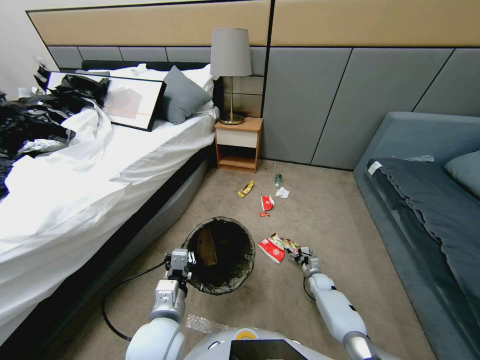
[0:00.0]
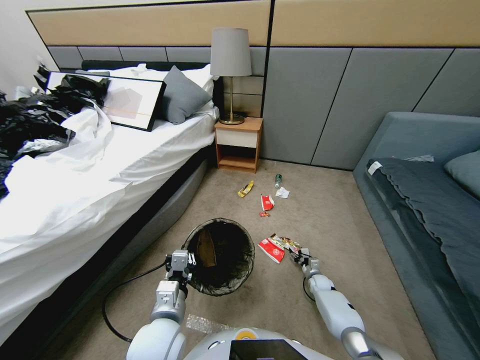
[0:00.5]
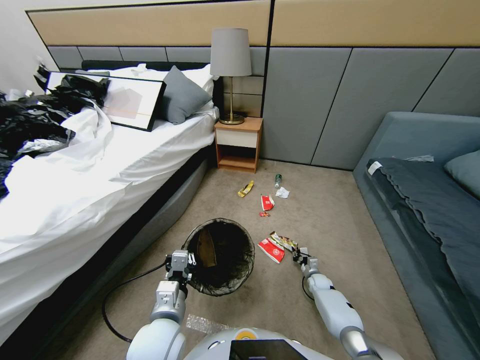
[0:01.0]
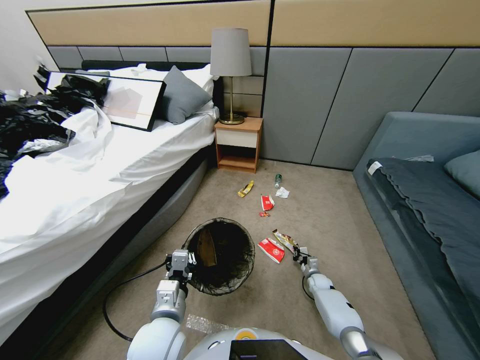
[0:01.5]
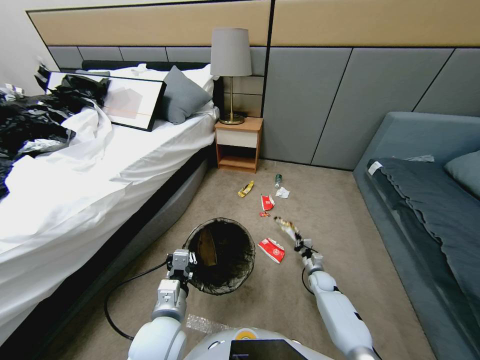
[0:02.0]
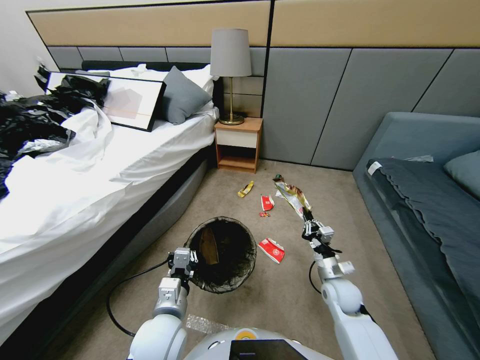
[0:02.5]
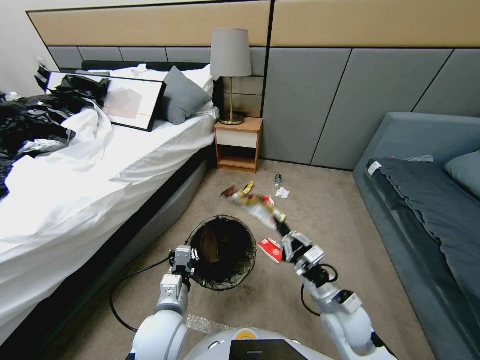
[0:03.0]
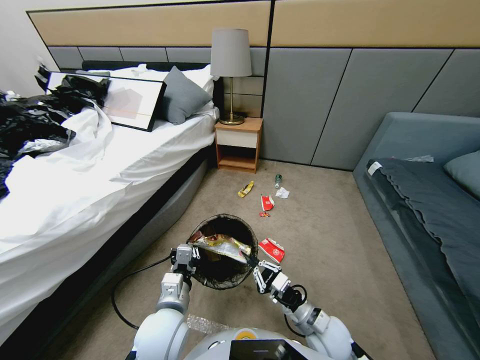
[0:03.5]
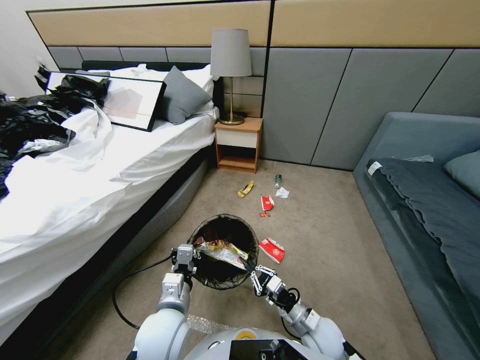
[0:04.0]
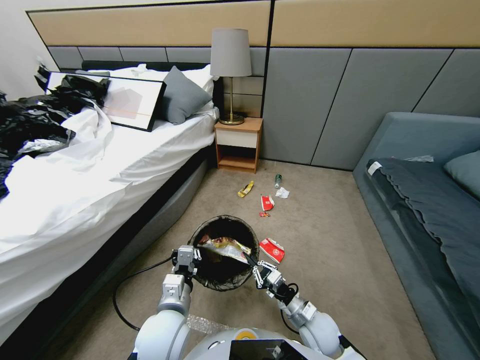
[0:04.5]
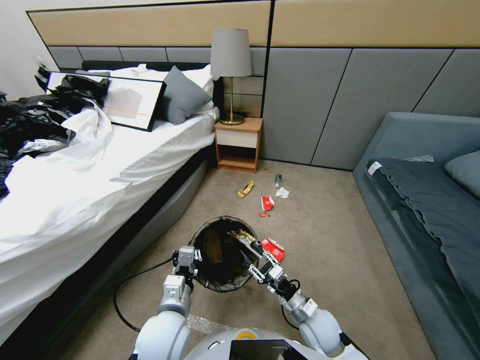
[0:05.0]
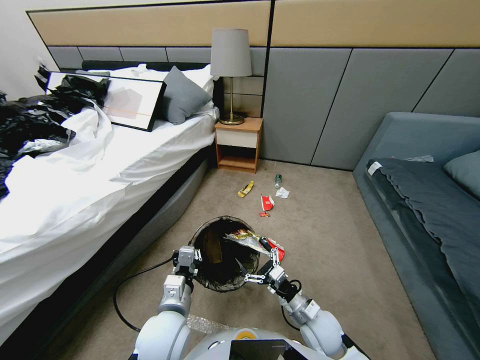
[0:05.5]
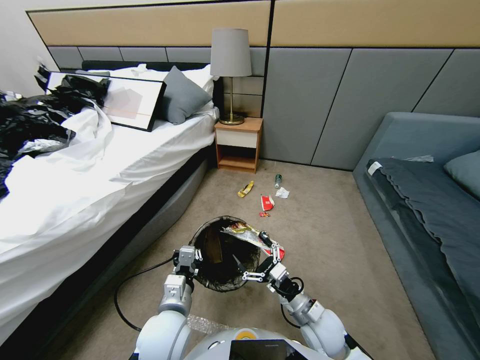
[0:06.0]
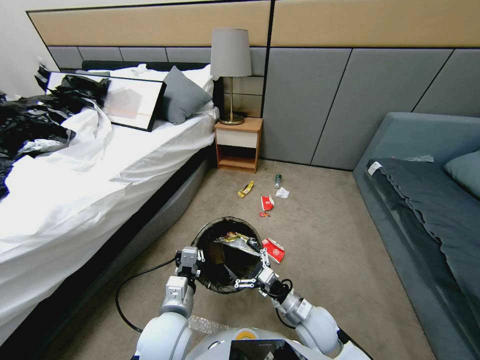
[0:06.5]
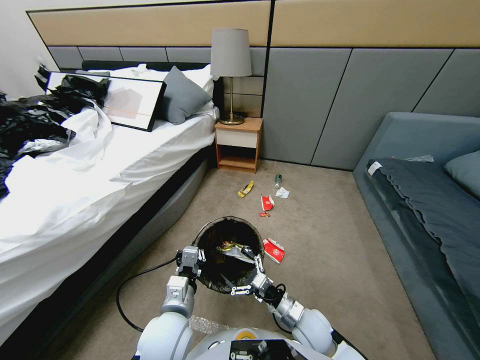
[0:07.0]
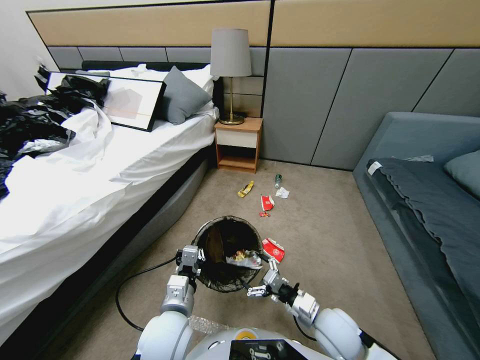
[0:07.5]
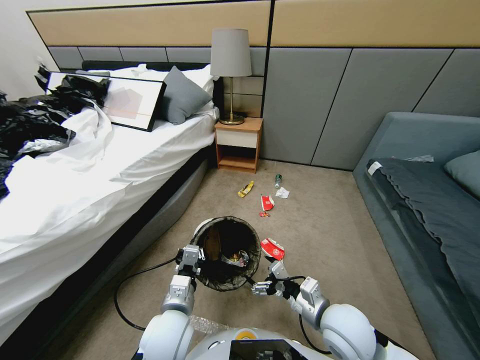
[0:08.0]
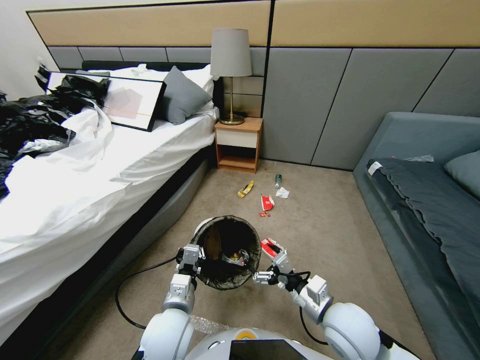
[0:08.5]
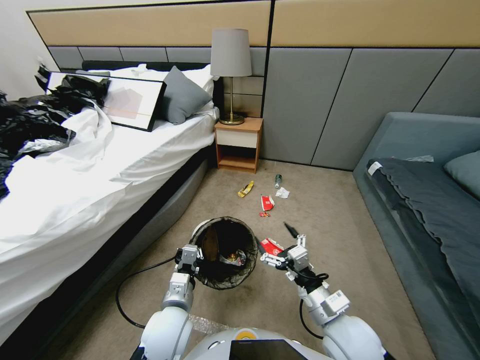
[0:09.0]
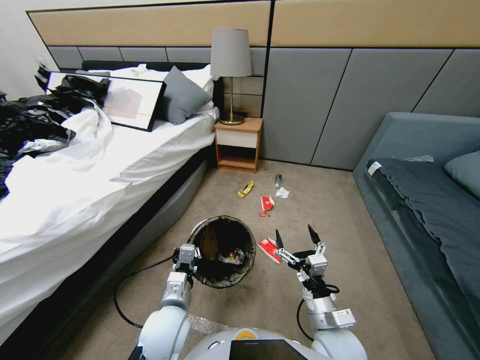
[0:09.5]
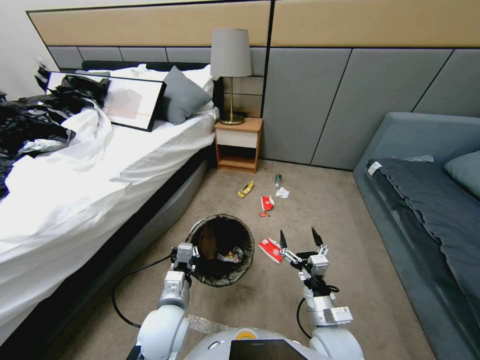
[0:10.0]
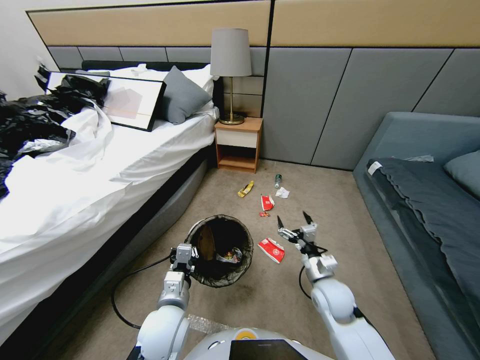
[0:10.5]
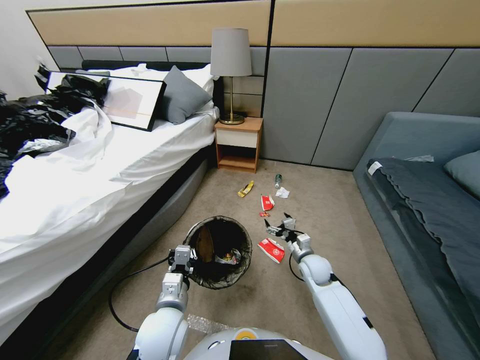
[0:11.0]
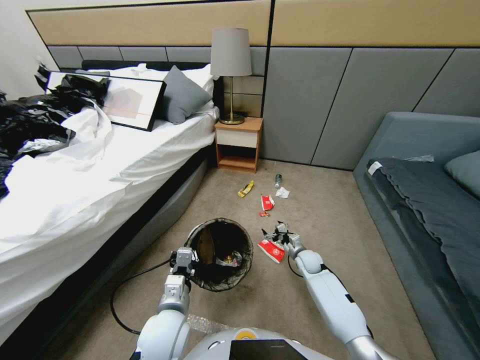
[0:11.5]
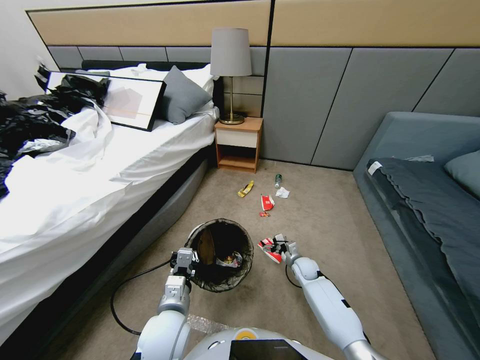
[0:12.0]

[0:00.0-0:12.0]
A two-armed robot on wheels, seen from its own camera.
Task of the whole recording: Pick up the trash bin, then pick up the garbage from the floor and place it into the trash bin.
0.0 to 2.0 s: The right gripper travels upward by about 10 cm, and closes up.
2.0 to 4.0 s: The right gripper is displaced backward, to the left and upward by approximately 25 cm.
4.0 to 6.0 s: The right gripper opens.
6.0 to 8.0 s: The right gripper is displaced upward by some 10 cm.
8.0 to 10.0 s: The right gripper is displaced downward by approximately 5 cm.
10.0 to 12.0 s: The right gripper heads forward and downward, covering roughly 25 cm.

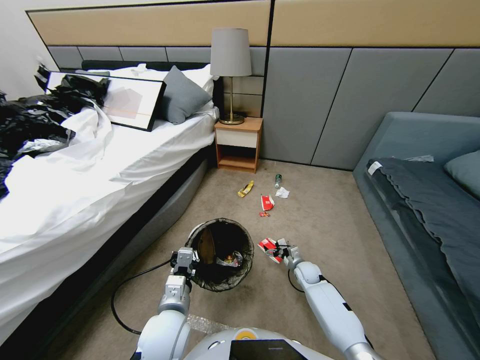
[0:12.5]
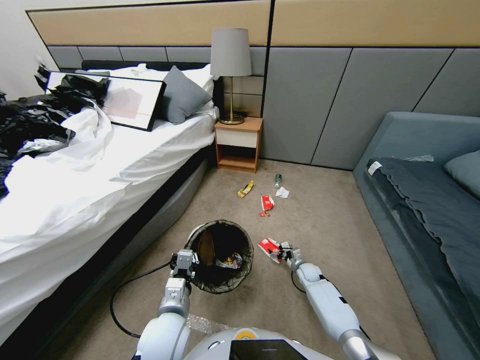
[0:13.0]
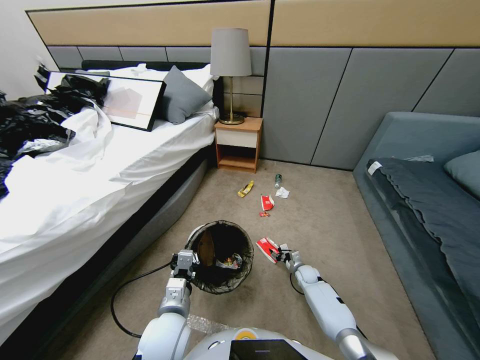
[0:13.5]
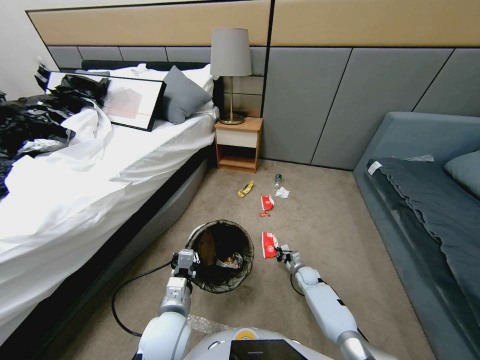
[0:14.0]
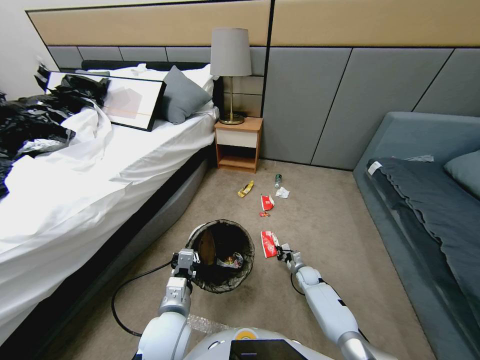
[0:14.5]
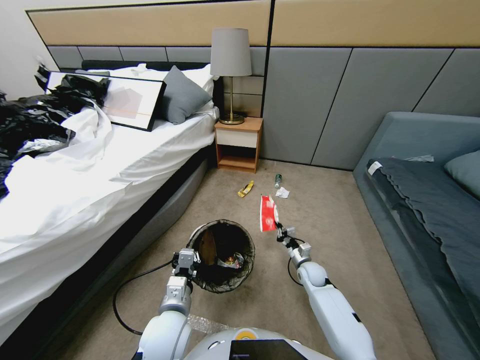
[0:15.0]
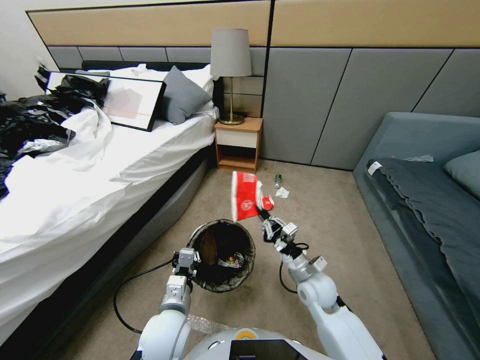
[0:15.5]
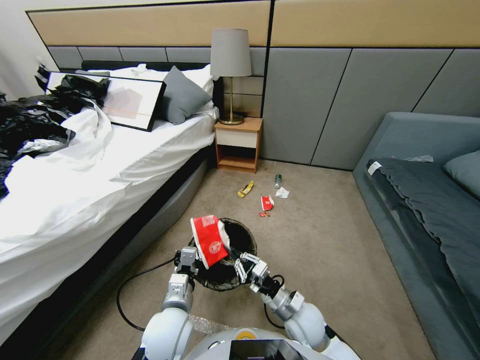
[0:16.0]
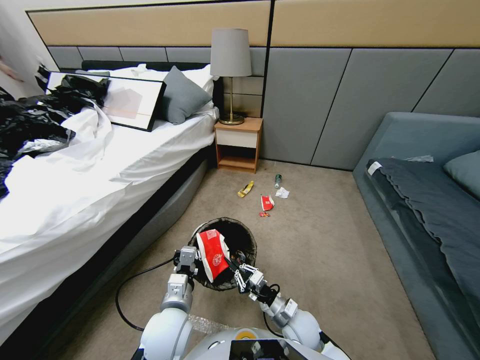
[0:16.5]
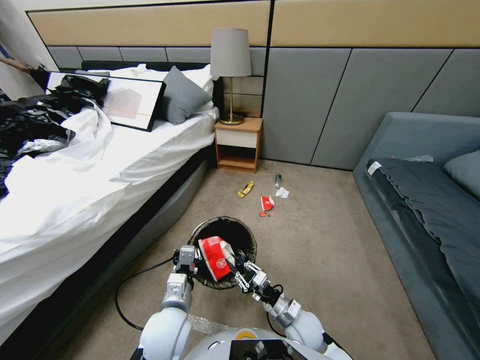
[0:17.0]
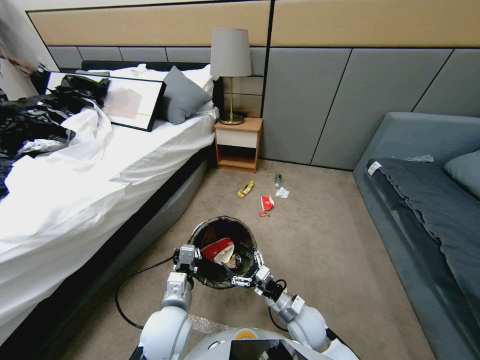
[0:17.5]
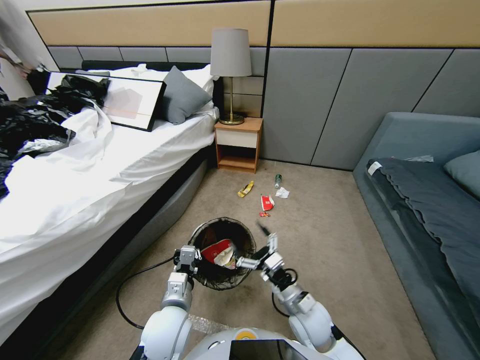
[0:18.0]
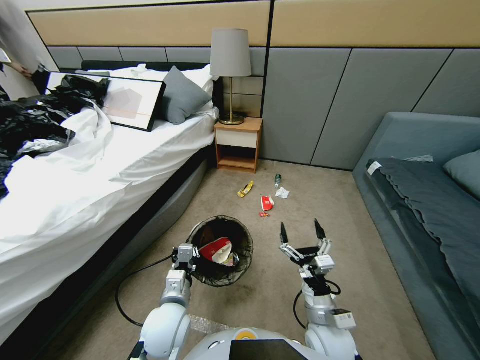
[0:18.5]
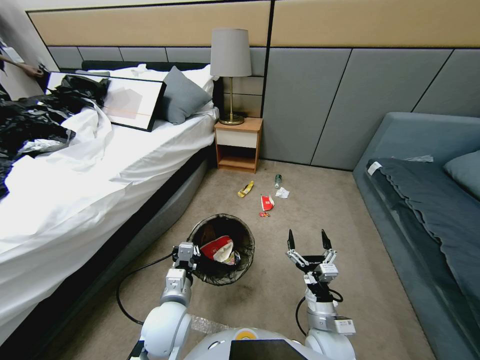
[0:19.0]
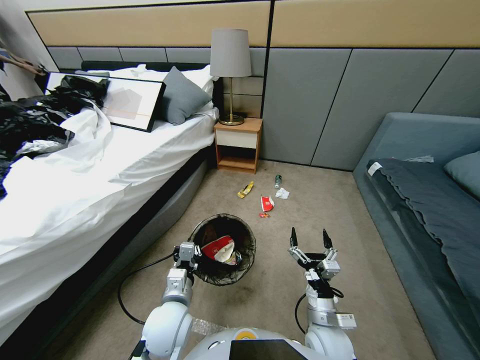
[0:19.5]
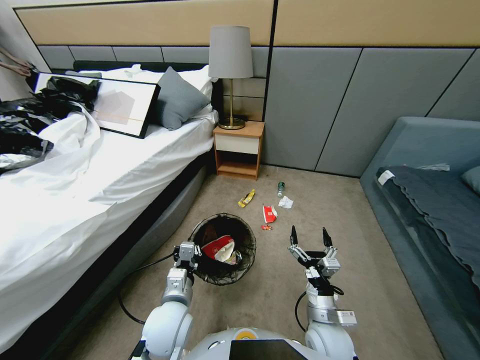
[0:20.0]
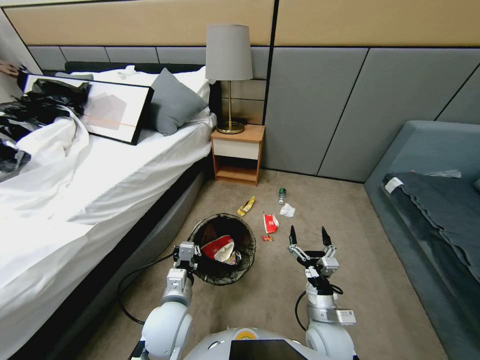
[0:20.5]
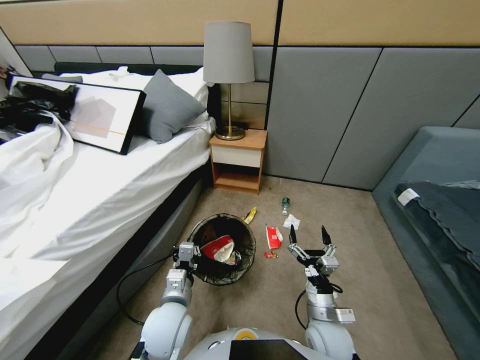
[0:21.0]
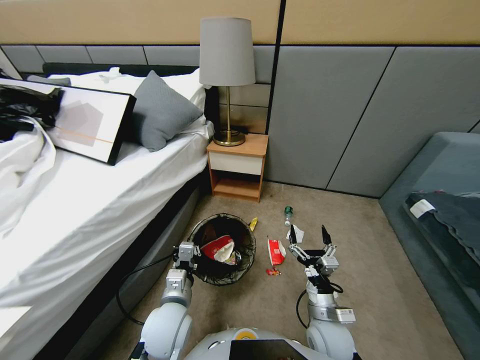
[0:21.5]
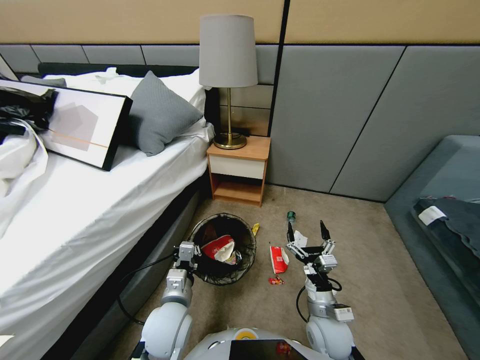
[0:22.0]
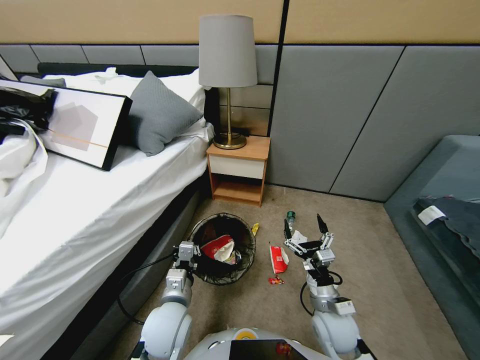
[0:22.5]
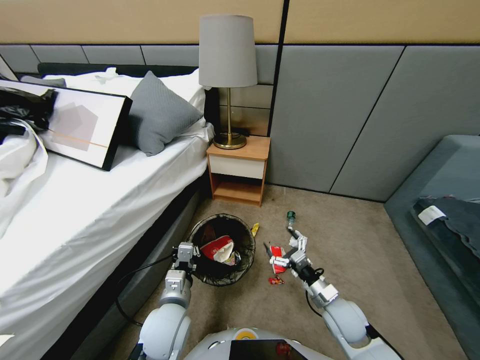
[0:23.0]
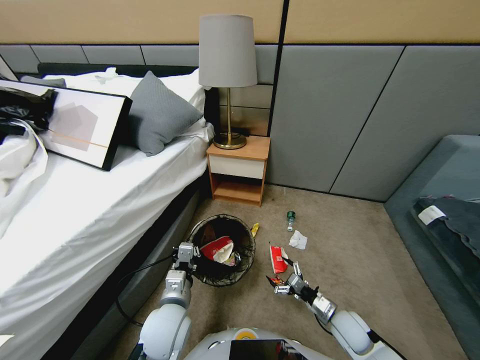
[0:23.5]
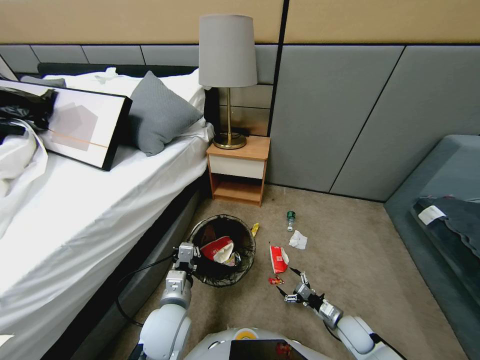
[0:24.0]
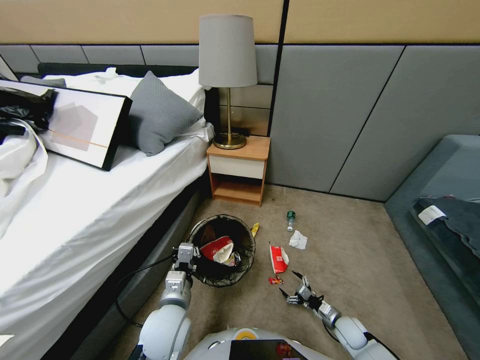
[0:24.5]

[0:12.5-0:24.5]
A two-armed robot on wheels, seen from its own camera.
Task of the whole recording: Pick up the trash bin, then pick up the garbage from the floor and place it into the trash bin.
12.5 to 14.5 s: The right gripper closes its fingers.
14.5 to 16.5 s: The right gripper is displaced backward, upward and to the left by approximately 25 cm.
16.5 to 18.5 s: The right gripper heads upward, covering approximately 10 cm, and opens.
22.5 to 24.5 s: The right gripper travels downward and to the right by about 25 cm.

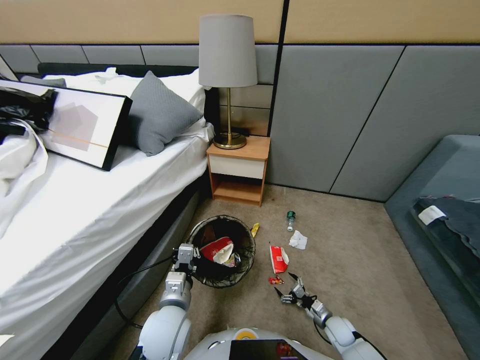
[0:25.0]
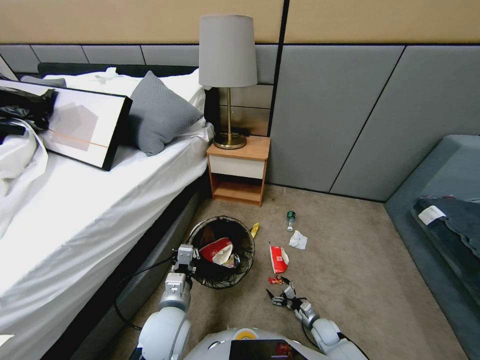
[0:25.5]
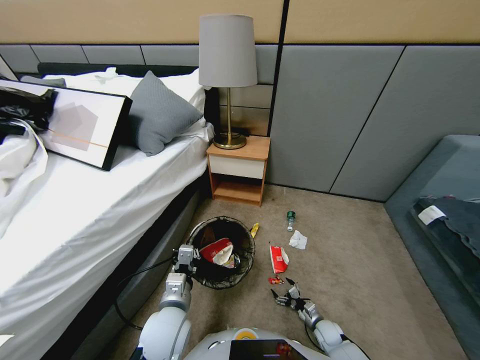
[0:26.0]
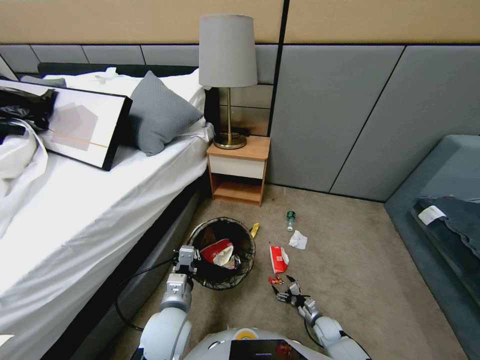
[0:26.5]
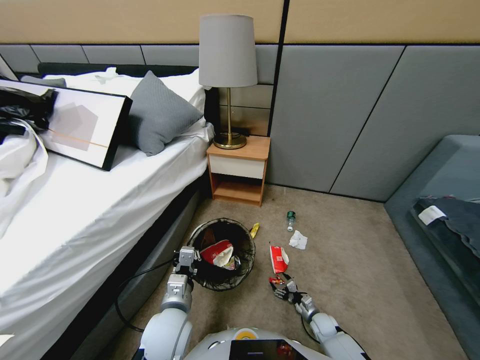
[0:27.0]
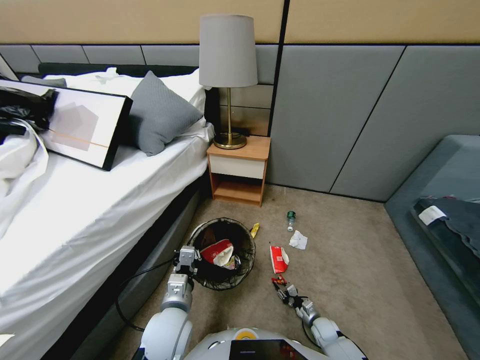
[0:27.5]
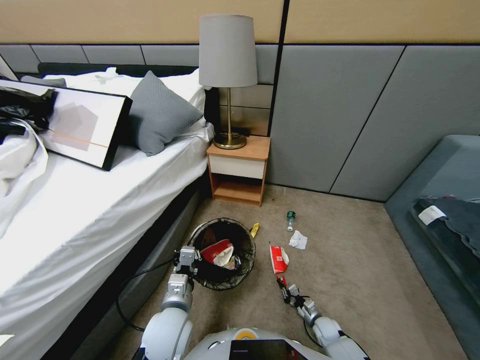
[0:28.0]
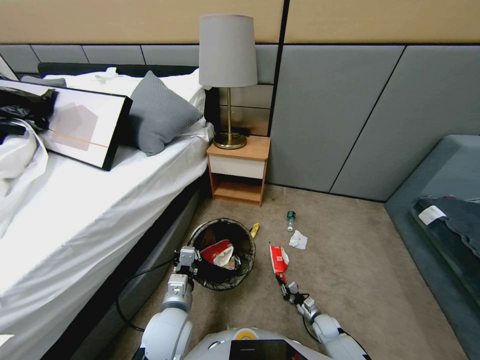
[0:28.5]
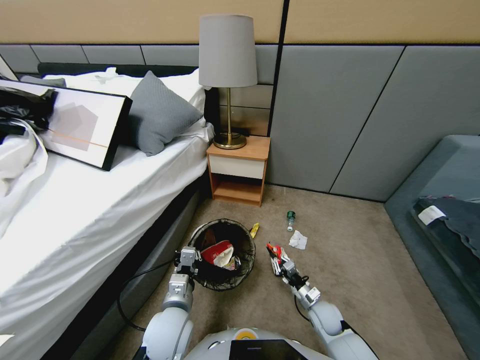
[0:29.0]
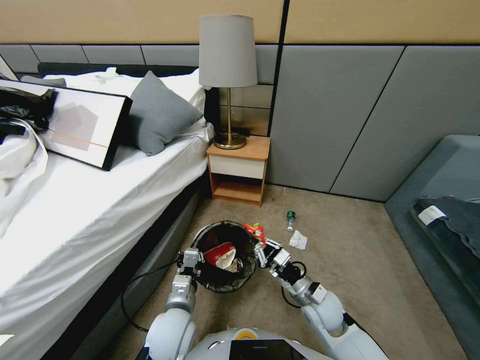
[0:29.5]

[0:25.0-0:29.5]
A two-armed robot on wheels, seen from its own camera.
Task of the whole recording: Pick up the trash bin, then pick up the garbage from the floor and place it into the trash bin.
25.0 to 27.0 s: The right gripper moves downward, about 5 cm.
27.0 to 29.5 s: The right gripper moves upward and to the left, roughly 35 cm, and closes.
